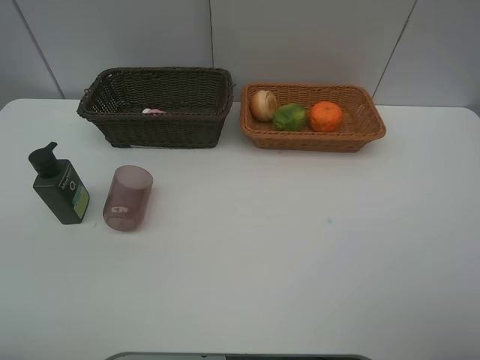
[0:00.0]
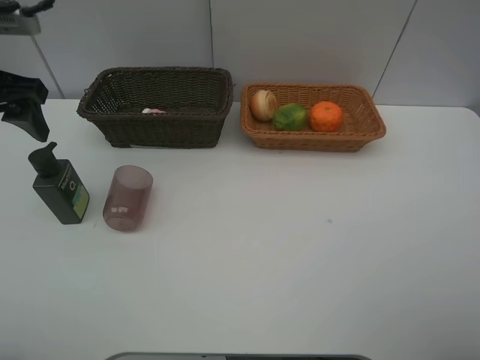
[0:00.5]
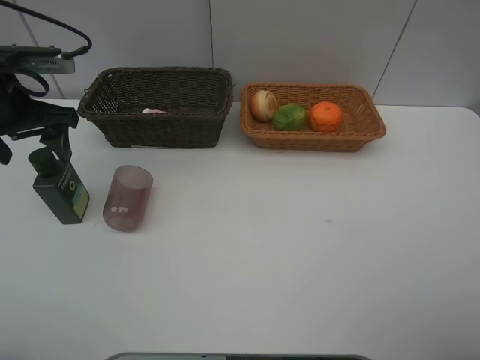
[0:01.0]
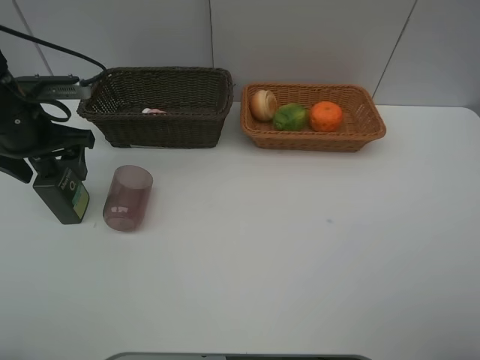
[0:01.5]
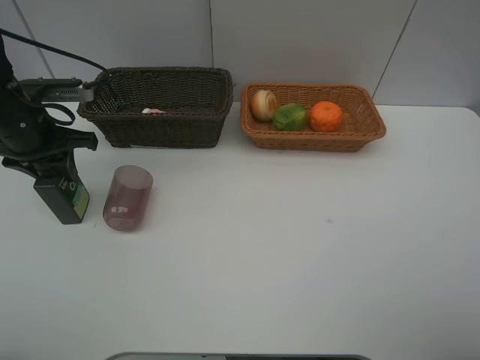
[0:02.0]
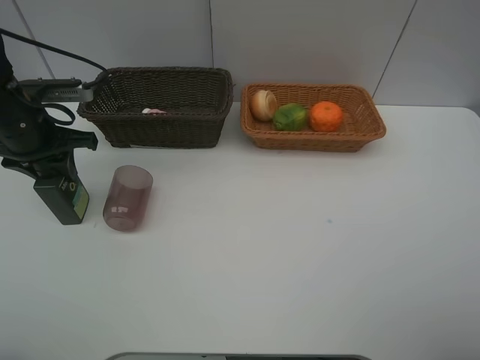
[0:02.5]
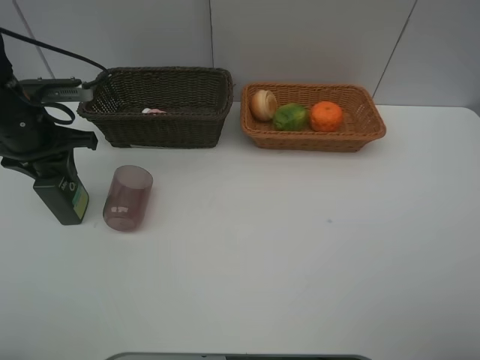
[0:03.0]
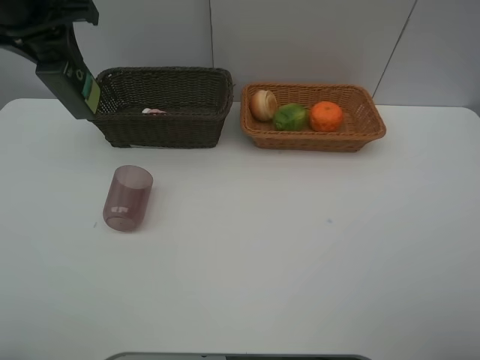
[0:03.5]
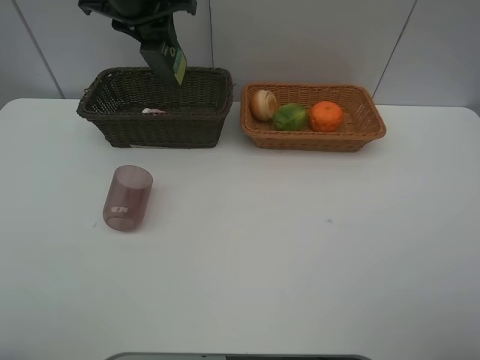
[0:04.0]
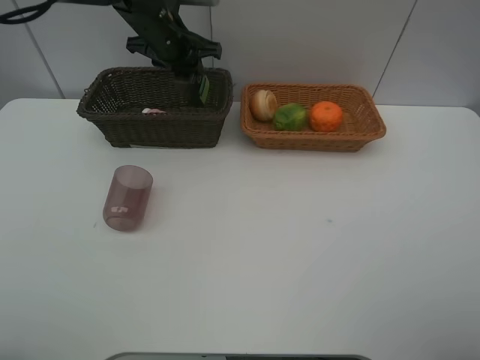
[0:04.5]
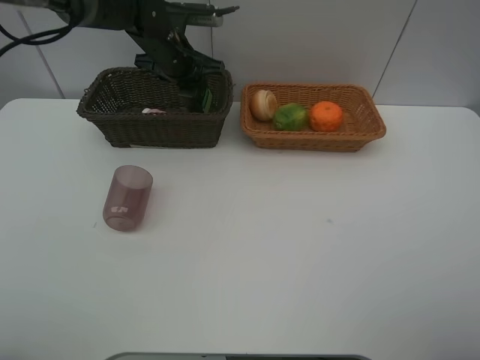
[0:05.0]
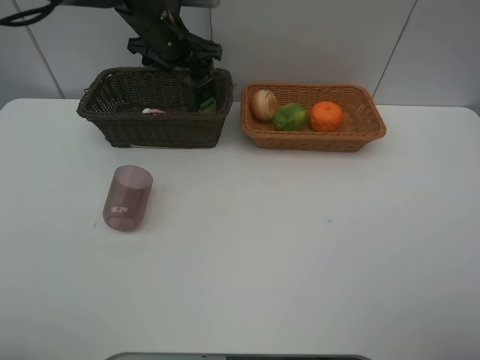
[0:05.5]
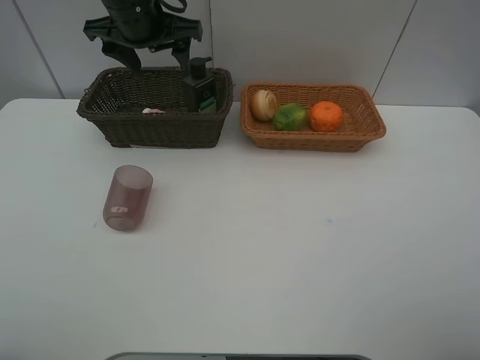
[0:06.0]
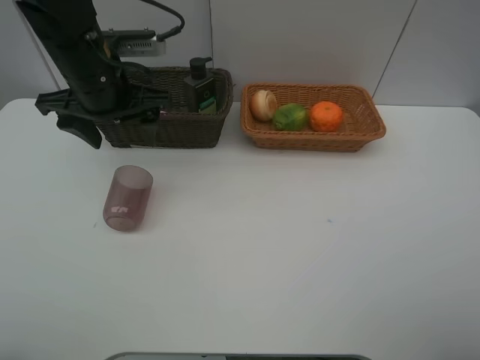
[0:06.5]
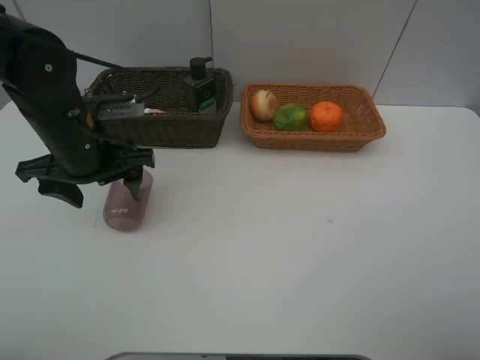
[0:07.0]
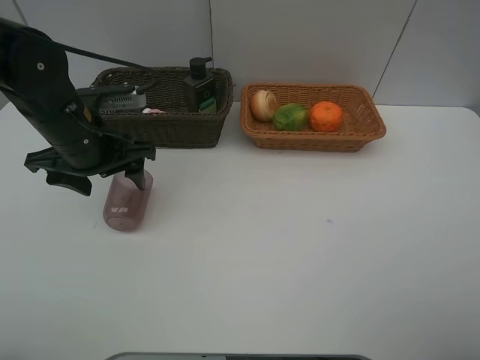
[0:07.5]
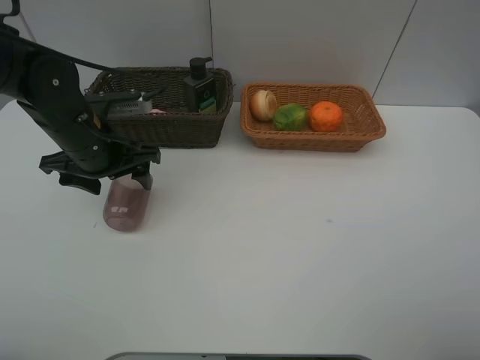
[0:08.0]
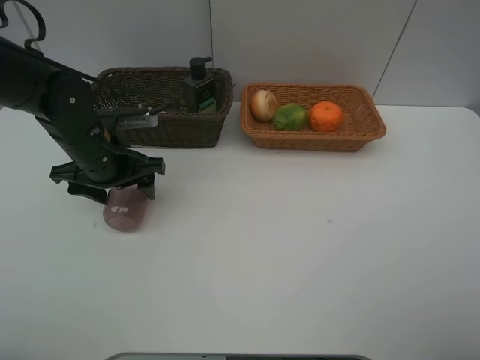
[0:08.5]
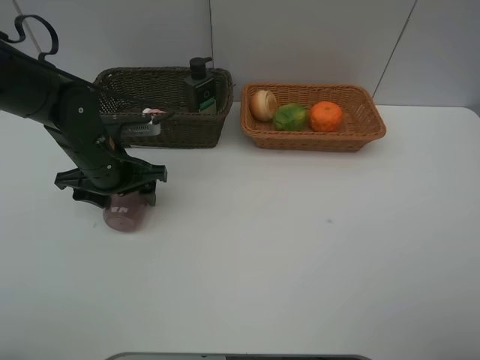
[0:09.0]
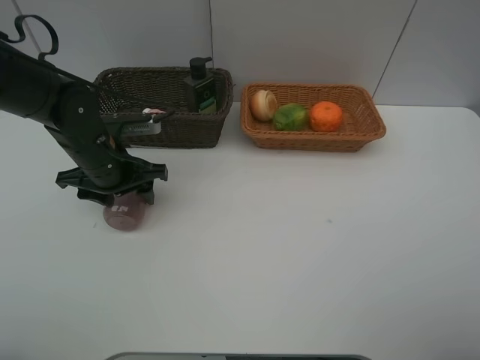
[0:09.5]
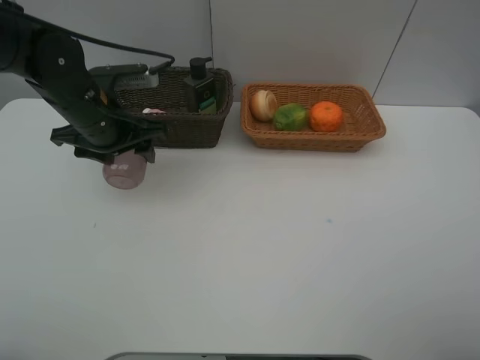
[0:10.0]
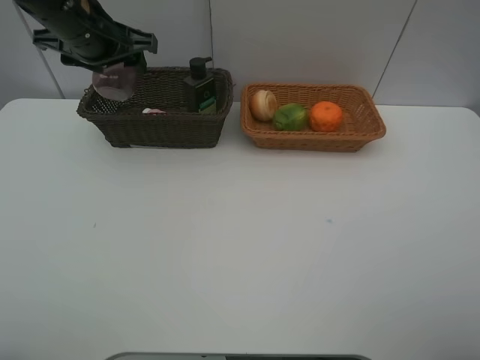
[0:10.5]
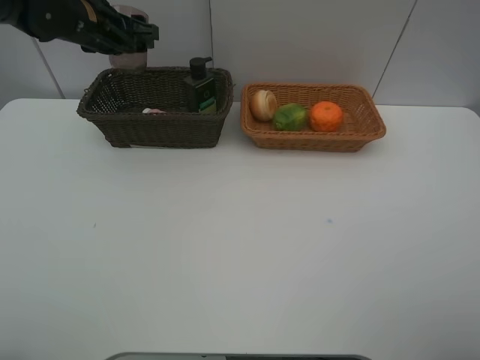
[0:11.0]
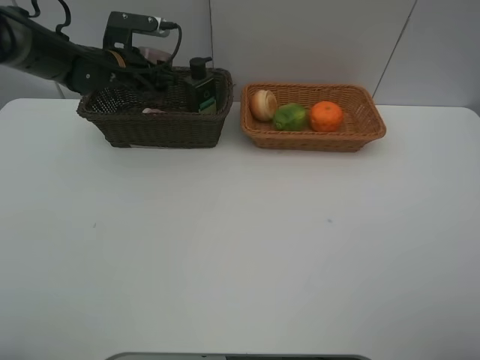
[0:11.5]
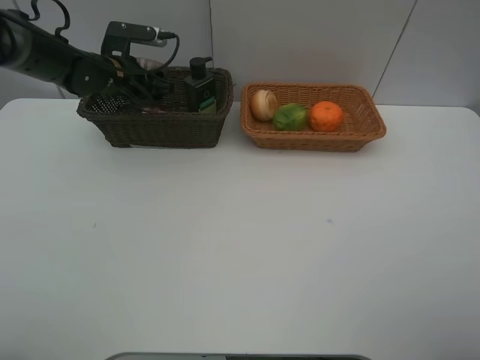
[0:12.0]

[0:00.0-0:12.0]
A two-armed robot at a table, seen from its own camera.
Task of the whole recording: place multiple objects separately in different baskets.
0:00.0 to 0:02.0: The left gripper is displaced forward and downward by about 25 cm, and closes.
0:02.0 to 0:04.0: The left gripper moves to the right, upward and forward, approximately 20 cm.
0:04.0 to 0:06.0: The left gripper moves approximately 10 cm downward and comes back, and opens.
0:06.0 to 0:08.0: The left gripper heads downward, backward and to the left, covering some 15 cm.
0:08.0 to 0:10.0: The grippers stay close to where they were, moving slightly.
0:10.0 to 0:12.0: The left gripper is displaced forward by roughly 15 cm.

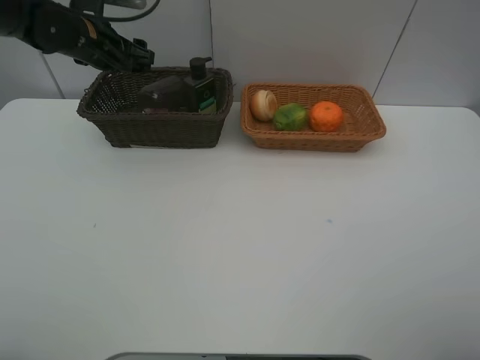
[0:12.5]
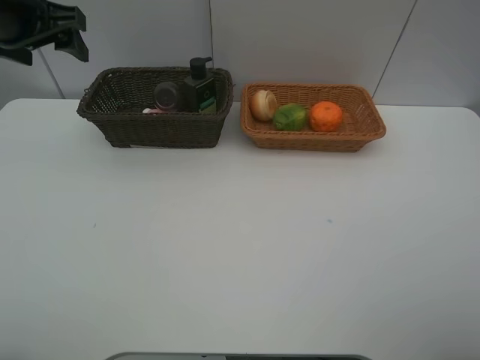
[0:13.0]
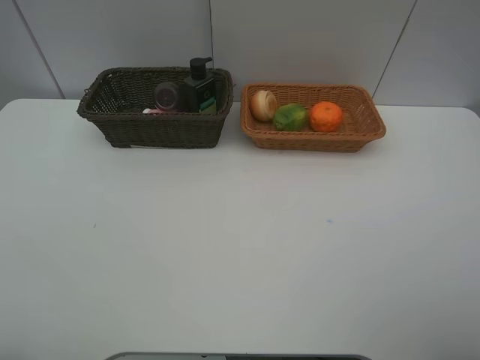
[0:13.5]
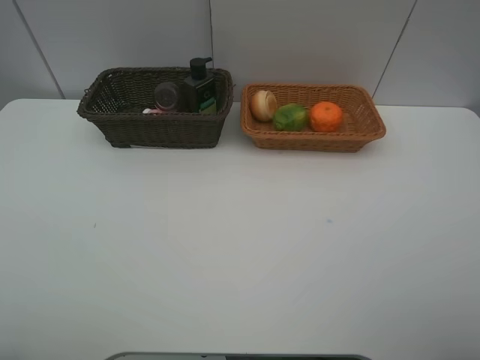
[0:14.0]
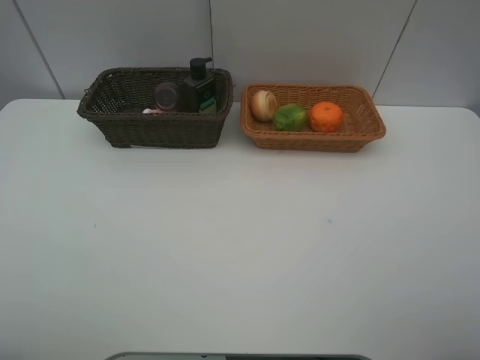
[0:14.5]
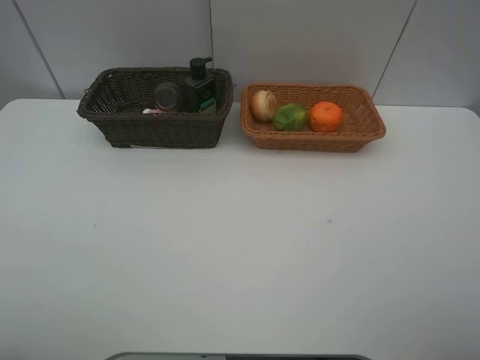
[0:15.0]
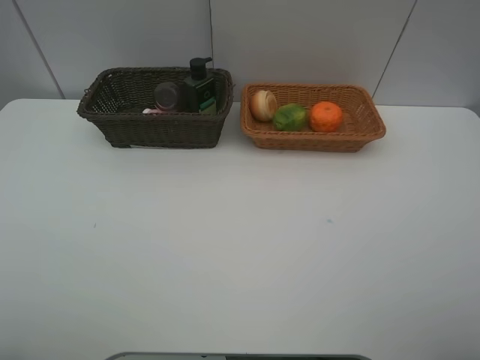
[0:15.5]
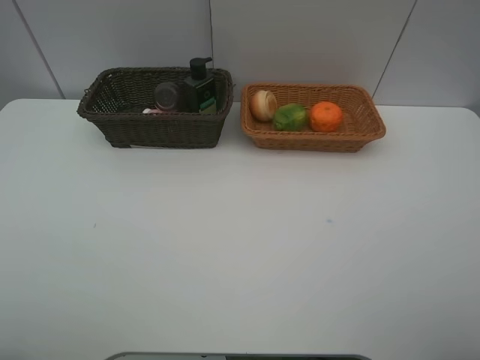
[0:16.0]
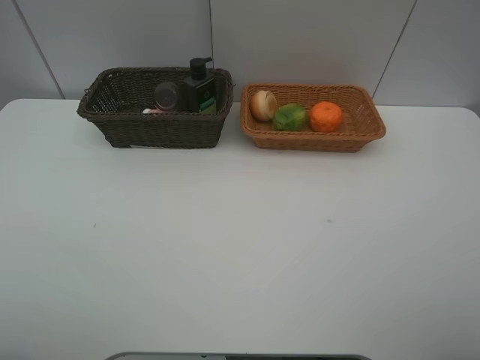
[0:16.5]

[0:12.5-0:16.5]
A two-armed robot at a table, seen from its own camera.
Task of the whole recording: place multiple objects separately in different baskets.
0:12.5 to 0:14.5: The left gripper heads backward, covering approximately 40 cm.
0:14.5 to 0:16.5: Both grippers stay about where they are.

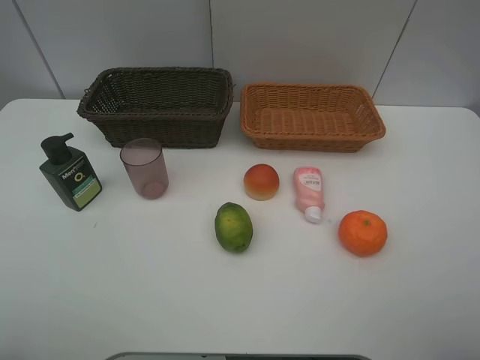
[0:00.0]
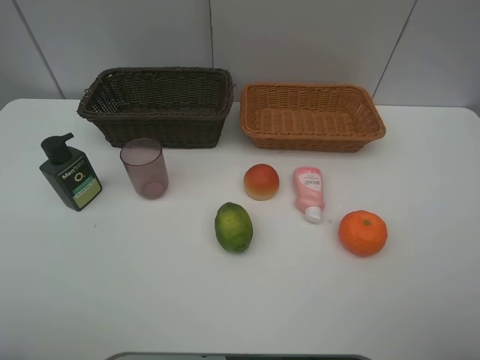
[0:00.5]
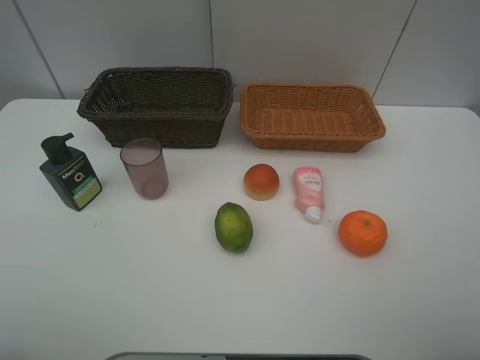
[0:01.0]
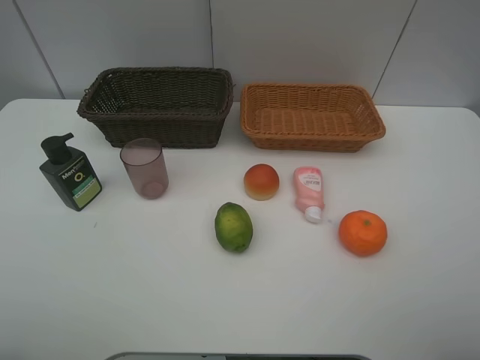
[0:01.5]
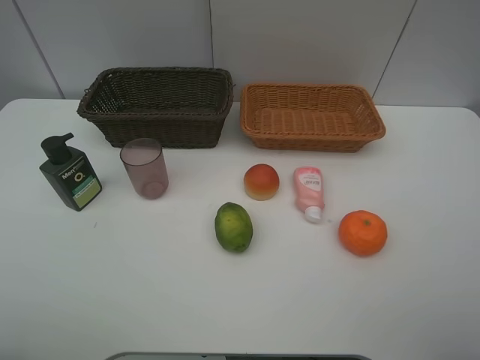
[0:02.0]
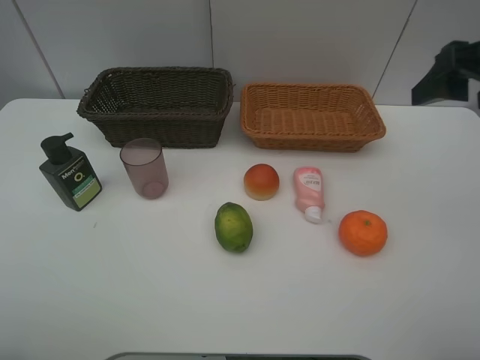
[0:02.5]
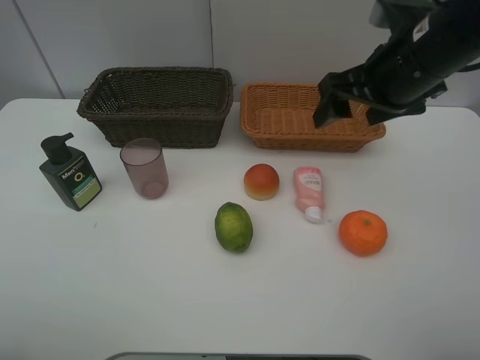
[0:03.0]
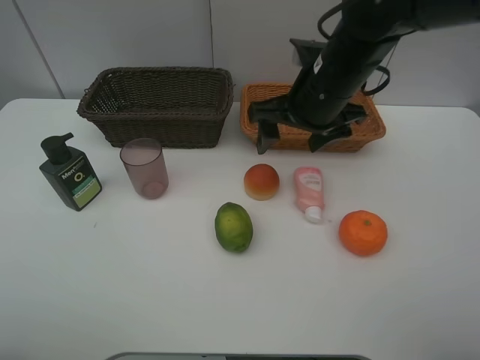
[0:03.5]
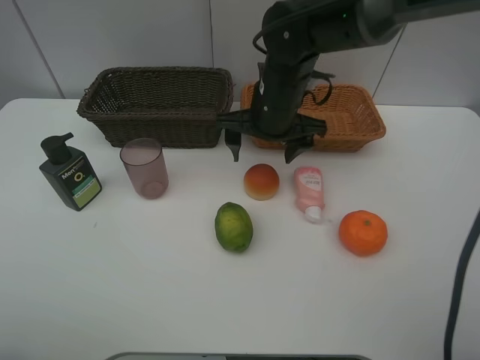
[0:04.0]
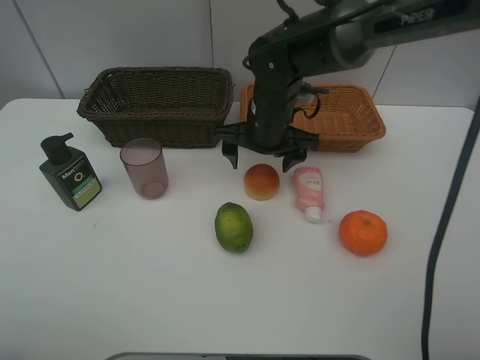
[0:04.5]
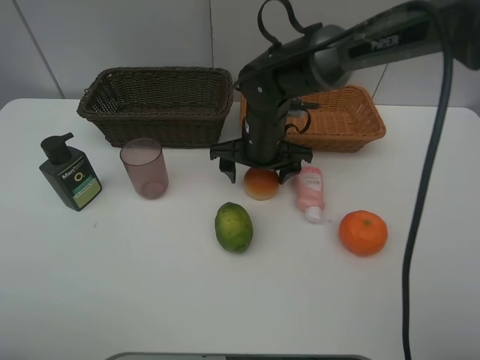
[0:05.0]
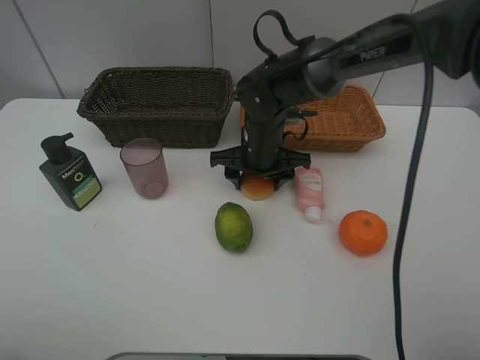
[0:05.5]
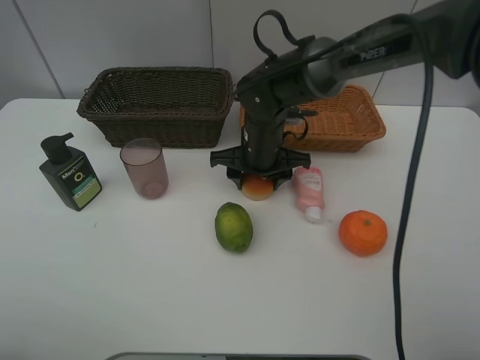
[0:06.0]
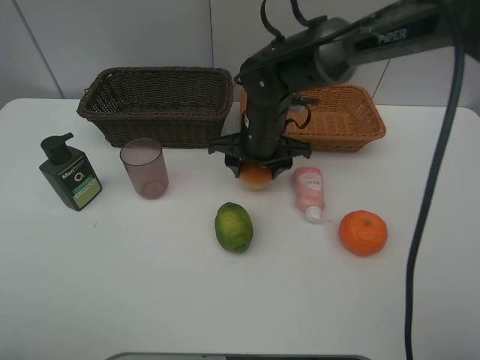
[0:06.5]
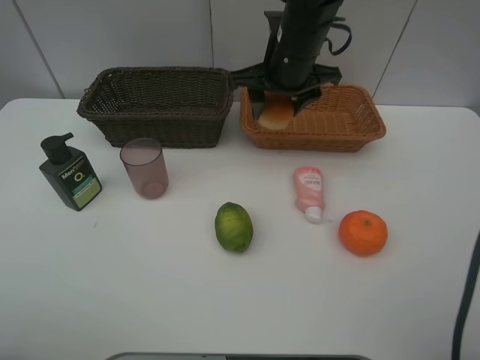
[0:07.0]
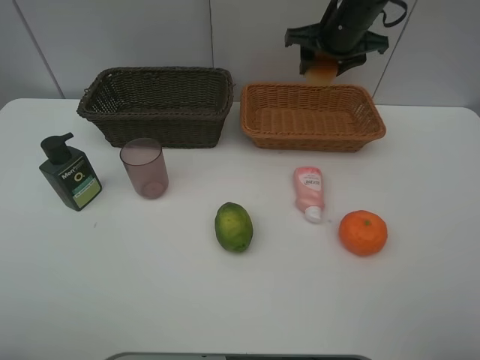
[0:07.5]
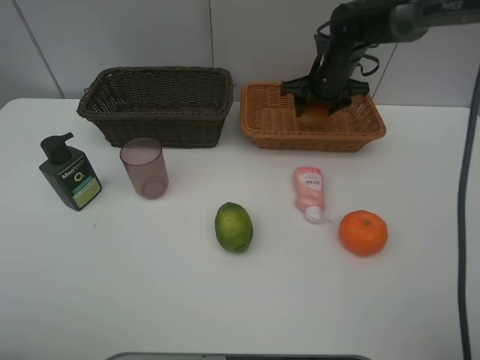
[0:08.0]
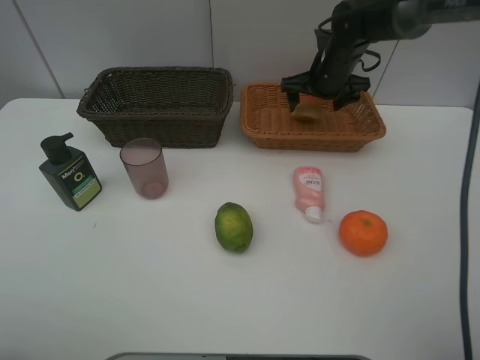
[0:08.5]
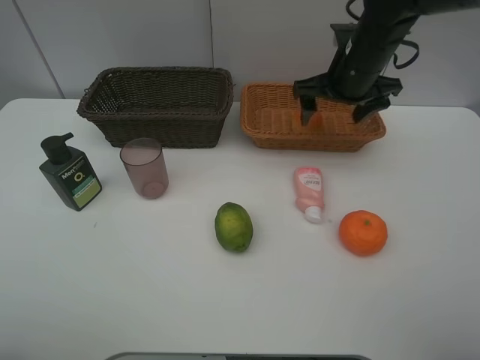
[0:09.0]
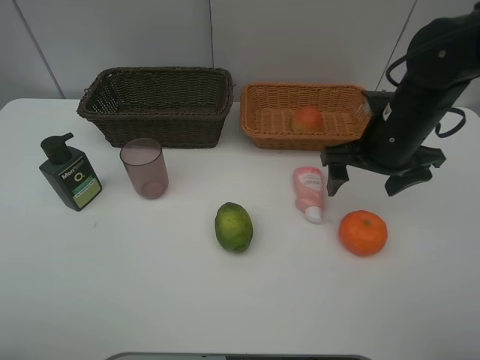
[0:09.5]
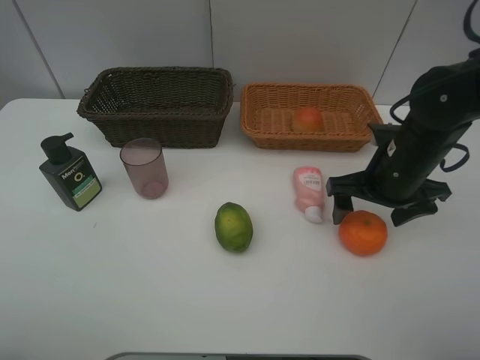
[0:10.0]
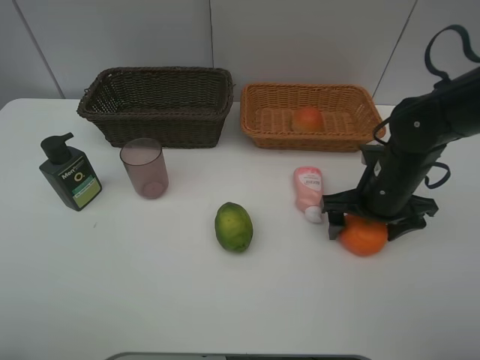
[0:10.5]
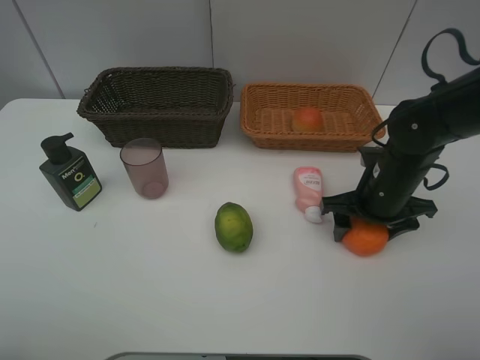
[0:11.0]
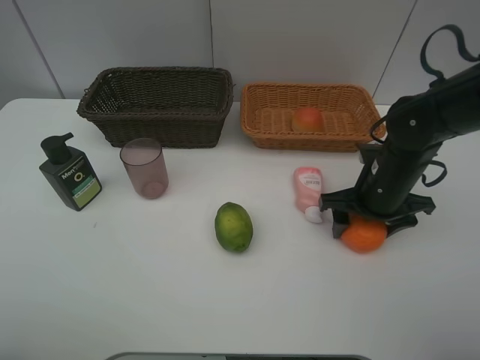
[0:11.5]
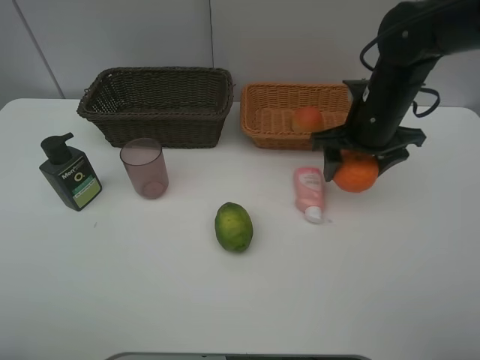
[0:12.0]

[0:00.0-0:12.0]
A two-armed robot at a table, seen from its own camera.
Task of the whole recording: place multiple objects separately in different baskets.
0:02.0 to 0:04.0: The right gripper travels forward, to the left and downward by roughly 40 cm.
0:04.0 to 0:06.0: The right gripper heads downward, covering roughly 5 cm, and closes.
0:06.0 to 0:08.0: The right gripper heads to the right, forward and upward, covering approximately 20 cm.
0:08.0 to 0:10.0: The right gripper shifts some 20 cm backward, and opens up.
0:10.0 to 0:12.0: The right gripper heads forward, covering some 5 cm, and closes its fingers.
